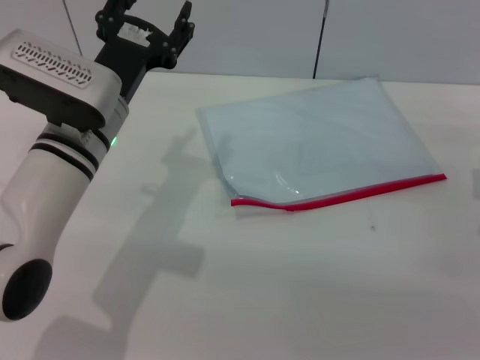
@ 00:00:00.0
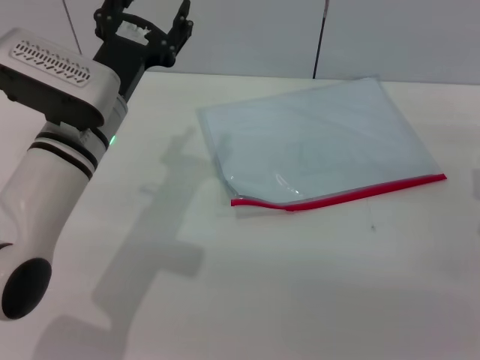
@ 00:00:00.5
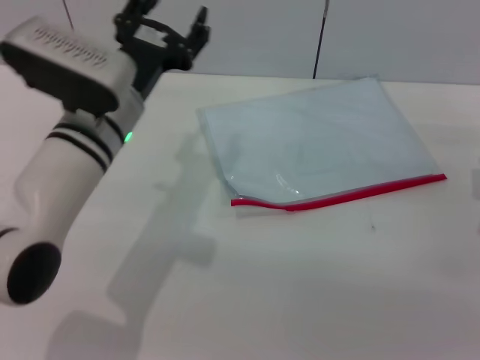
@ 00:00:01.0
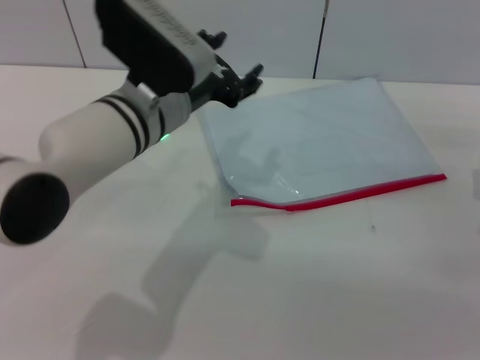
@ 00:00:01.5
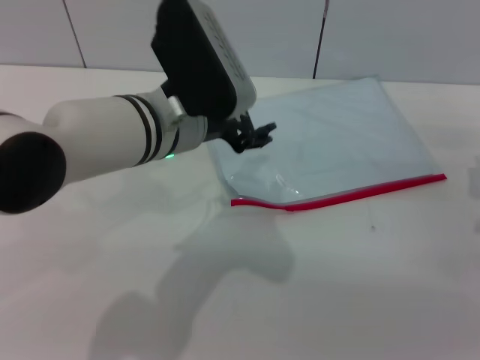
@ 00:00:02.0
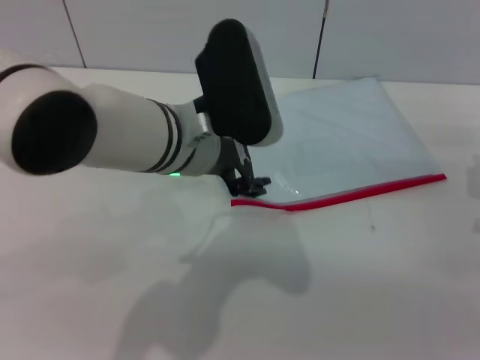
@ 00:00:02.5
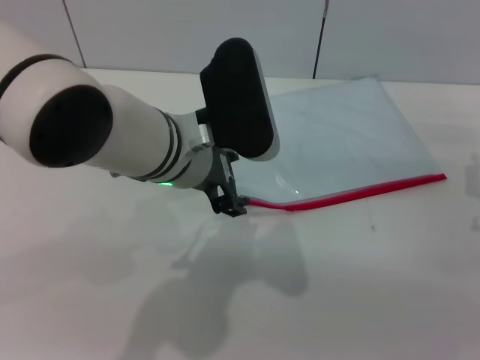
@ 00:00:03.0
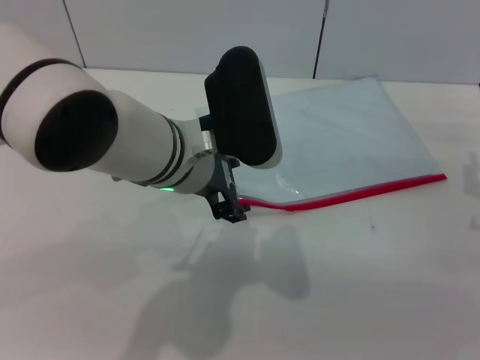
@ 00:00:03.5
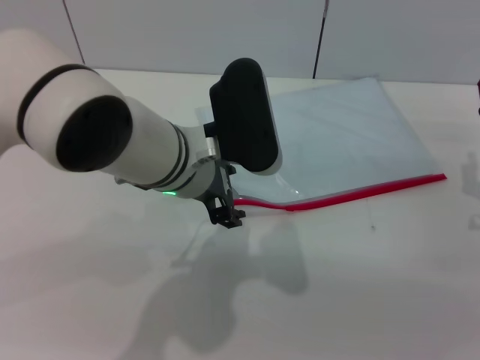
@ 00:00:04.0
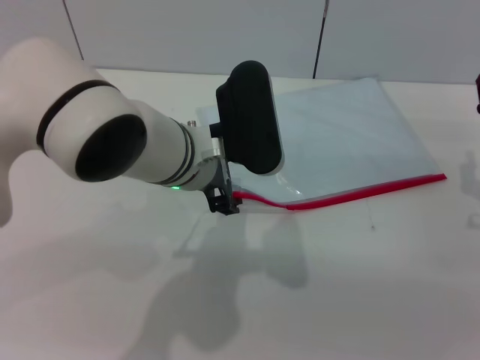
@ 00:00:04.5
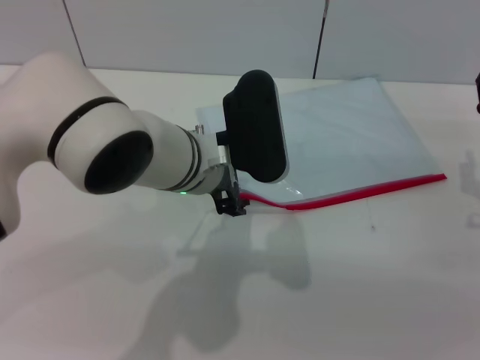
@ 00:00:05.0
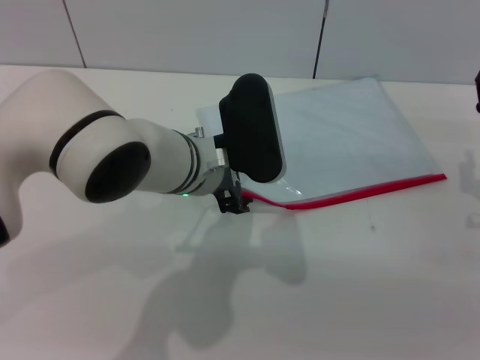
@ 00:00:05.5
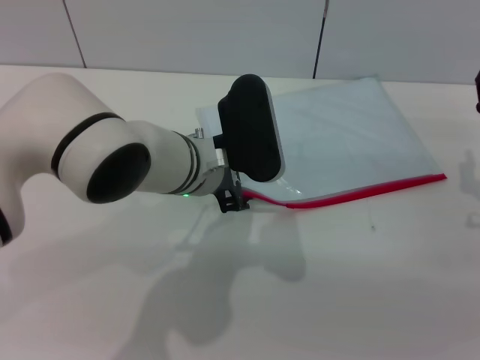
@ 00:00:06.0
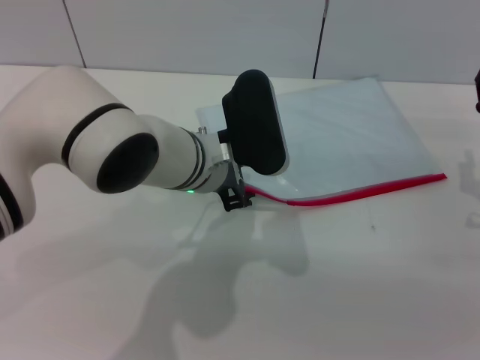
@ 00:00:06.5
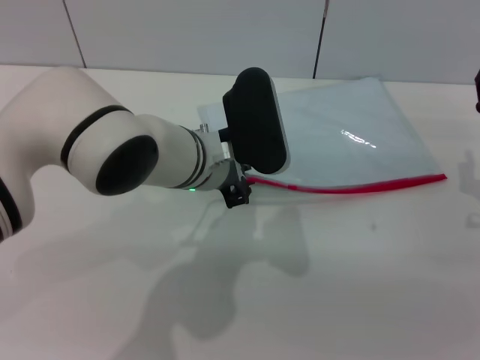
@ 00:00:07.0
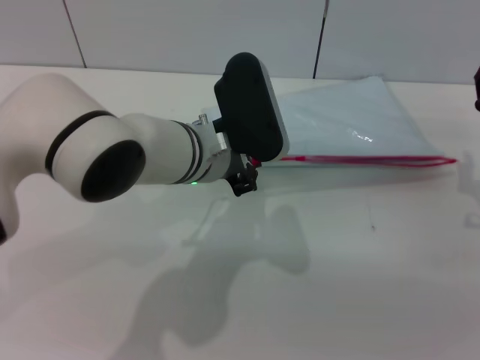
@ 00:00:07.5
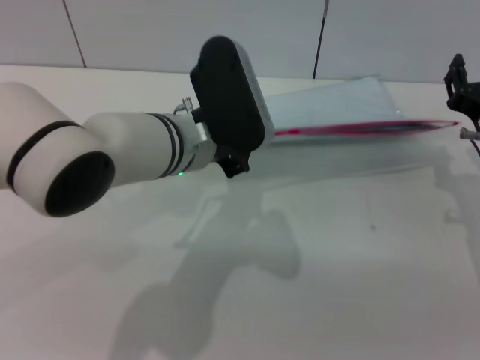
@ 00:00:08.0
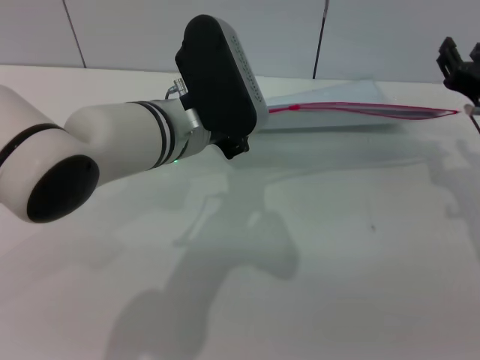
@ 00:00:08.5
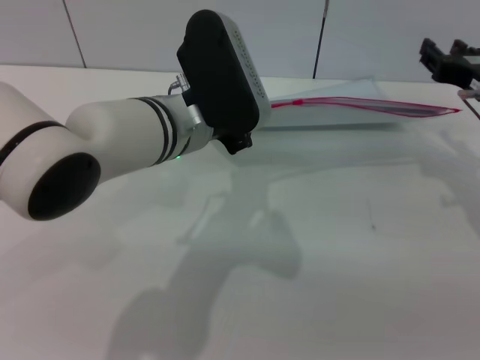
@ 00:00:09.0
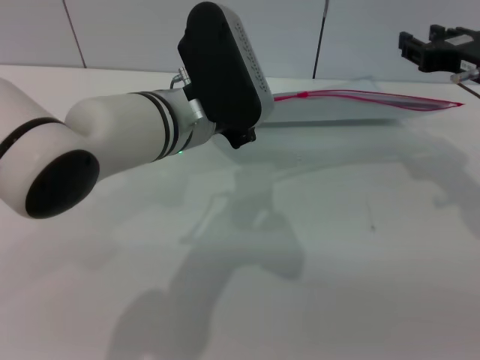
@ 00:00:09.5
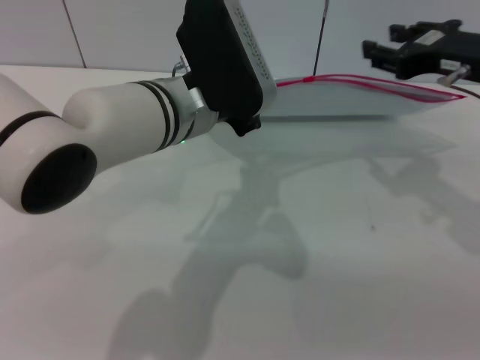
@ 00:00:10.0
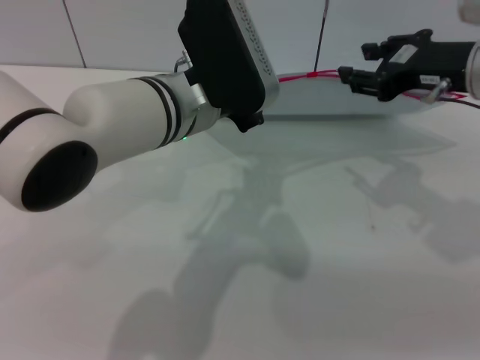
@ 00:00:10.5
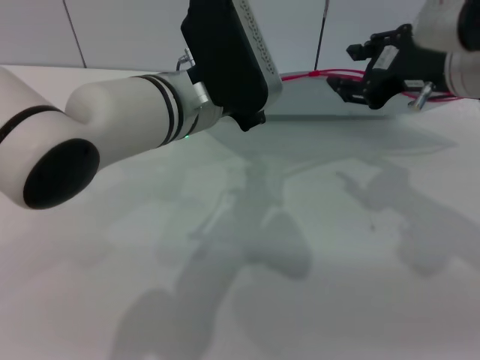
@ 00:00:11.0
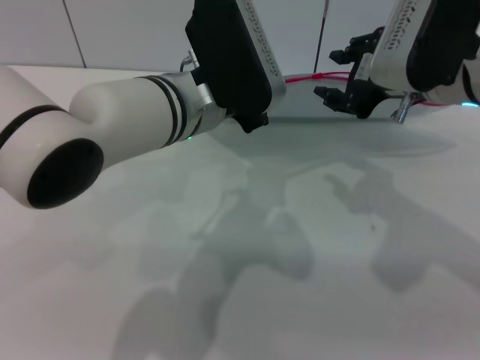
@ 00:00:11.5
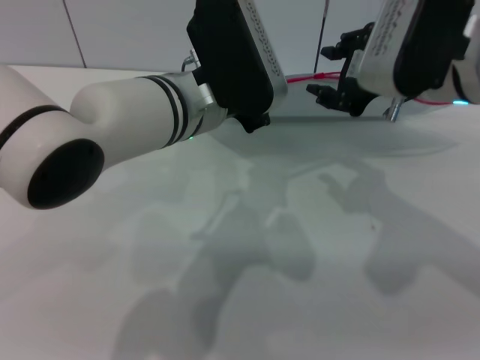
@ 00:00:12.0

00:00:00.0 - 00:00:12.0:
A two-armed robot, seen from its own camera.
Step, 00:00:00.0 - 00:00:07.0: Pick up the transparent plastic bag with the left gripper.
00:00:00.0 - 00:00:02.0: The left gripper goes roughly 5 cm to the right.
00:00:04.0 - 00:00:06.0: The grippers move only a little.
00:00:06.0 - 00:00:08.0: The left gripper closes up.
00:00:08.0 - 00:00:10.0: The right gripper is displaced upward by about 10 cm.
00:00:10.0 - 00:00:12.0: The right gripper shifts roughly 10 cm to the left.

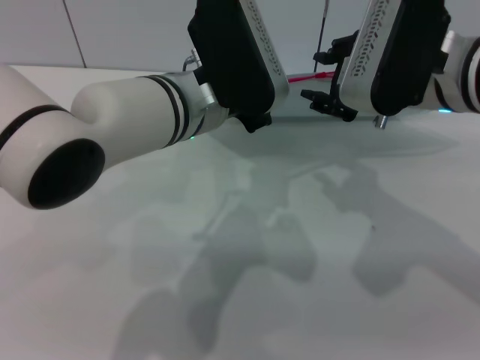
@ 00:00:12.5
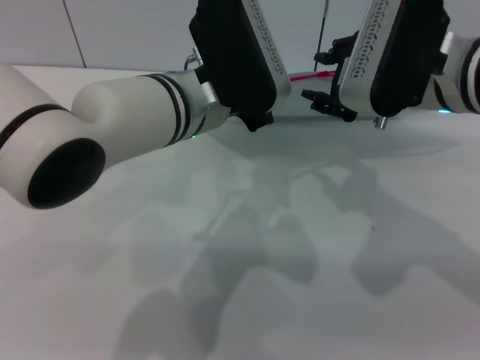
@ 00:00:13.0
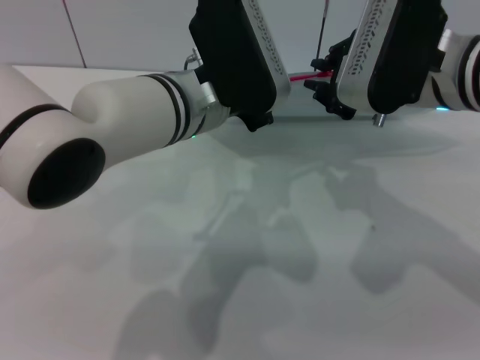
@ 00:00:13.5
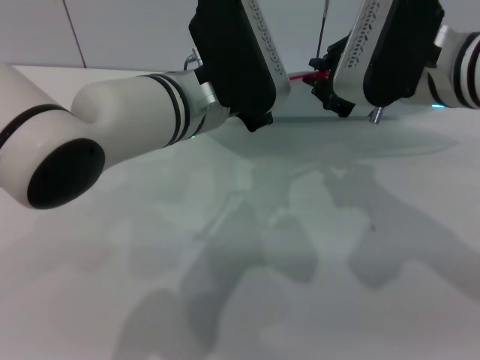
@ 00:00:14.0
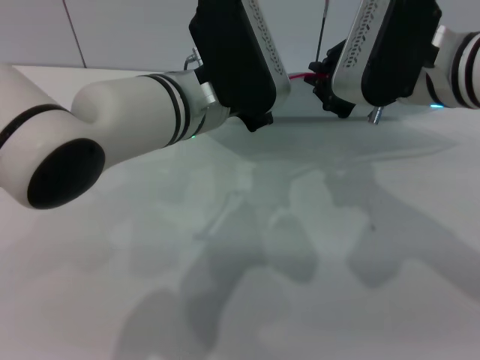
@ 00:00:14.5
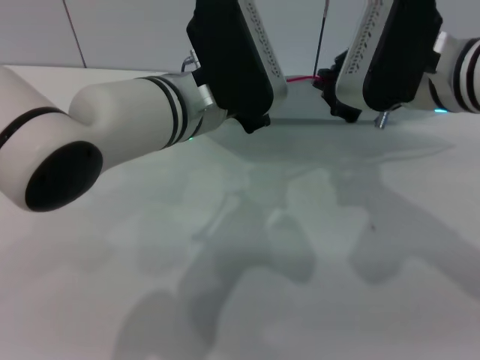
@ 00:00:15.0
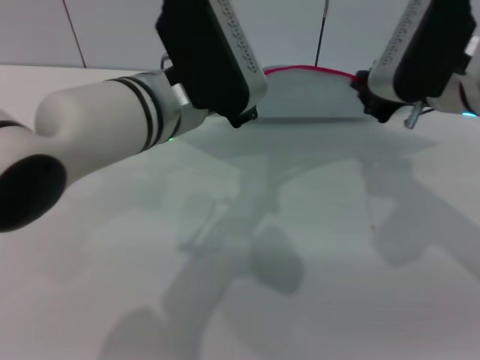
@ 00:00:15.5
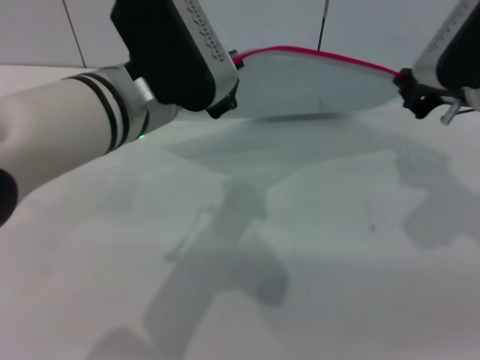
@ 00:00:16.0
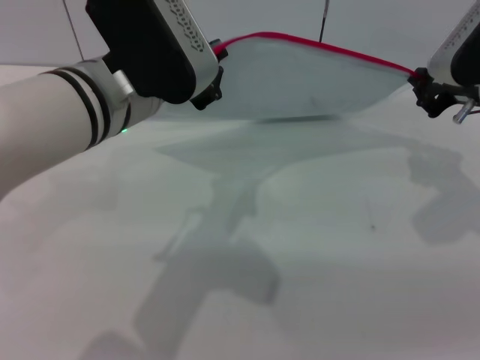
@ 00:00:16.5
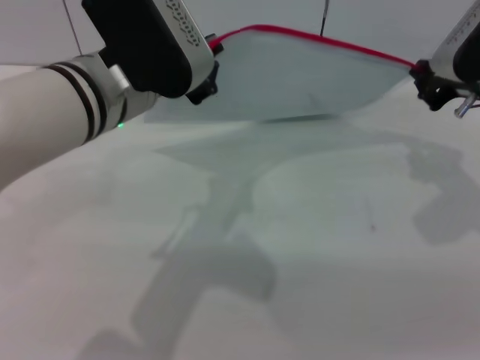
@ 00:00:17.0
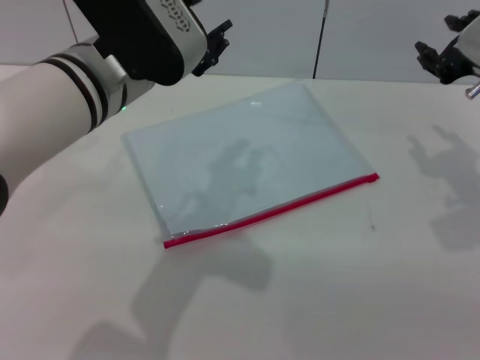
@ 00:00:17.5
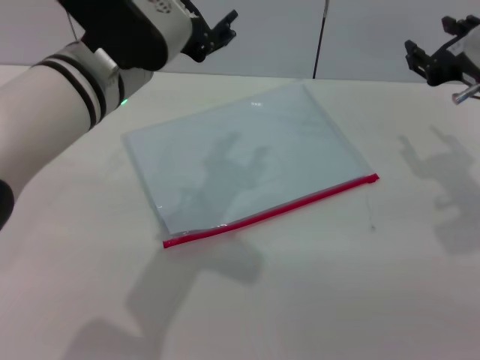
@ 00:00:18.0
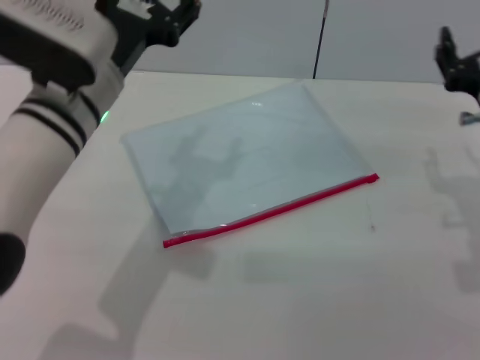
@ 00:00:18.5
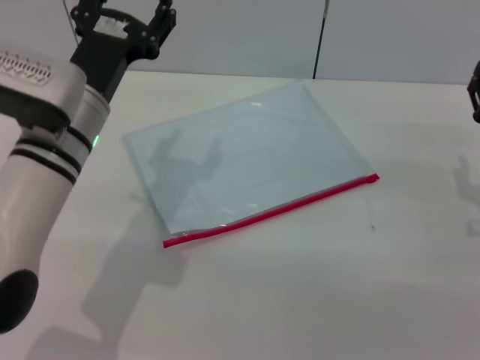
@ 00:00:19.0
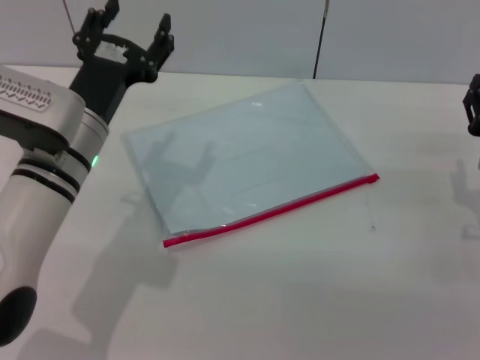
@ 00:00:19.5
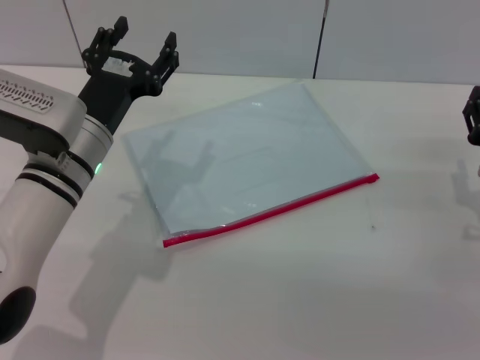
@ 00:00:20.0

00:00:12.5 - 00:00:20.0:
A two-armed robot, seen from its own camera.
Step, 00:00:12.5 - 00:00:17.0: Pulling up the zipper on the transparent plastic bag with the right gripper to close it.
00:00:12.5 - 00:00:14.5: The right gripper closes.
00:00:14.5 - 00:00:16.5: The left gripper shifts by approximately 5 cm. Meanwhile the right gripper is displaced to the right by approximately 10 cm.
00:00:16.5 - 00:00:18.0: The right gripper opens; the left gripper opens.
00:00:18.0 - 00:00:20.0: The left gripper goes some 15 cm downward and to the left. Meanwhile the right gripper is displaced downward and backward by about 15 cm.
